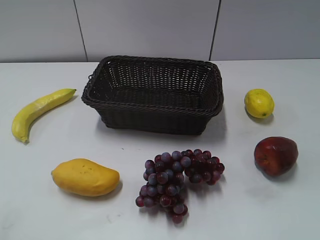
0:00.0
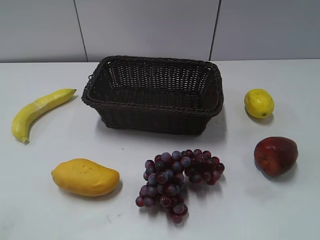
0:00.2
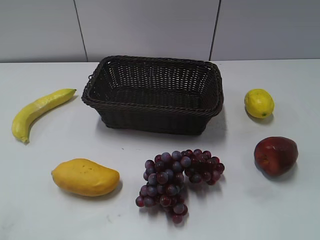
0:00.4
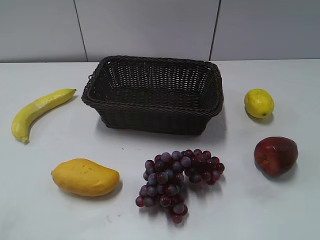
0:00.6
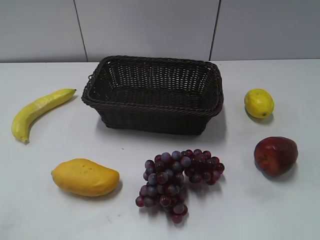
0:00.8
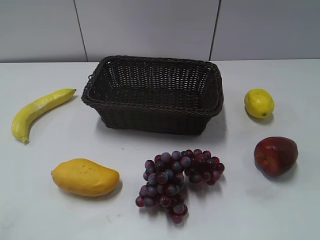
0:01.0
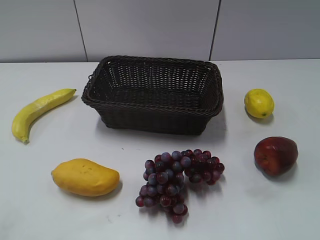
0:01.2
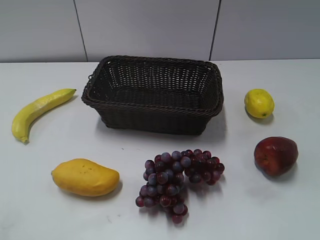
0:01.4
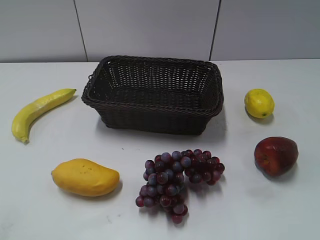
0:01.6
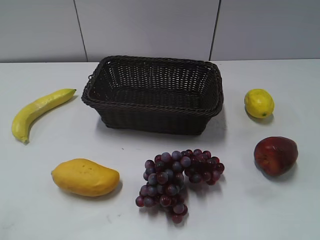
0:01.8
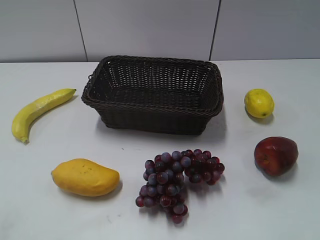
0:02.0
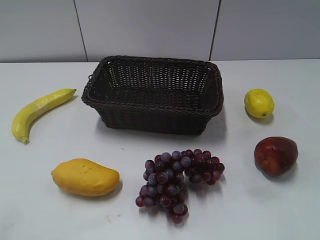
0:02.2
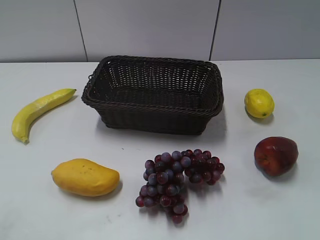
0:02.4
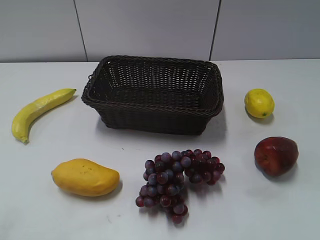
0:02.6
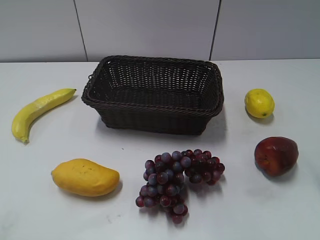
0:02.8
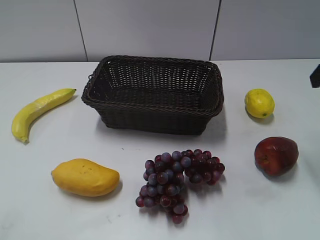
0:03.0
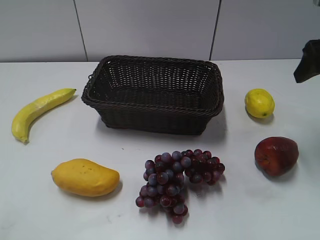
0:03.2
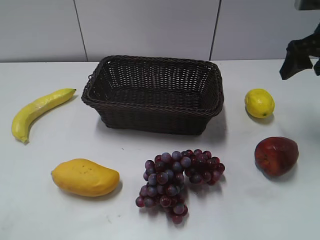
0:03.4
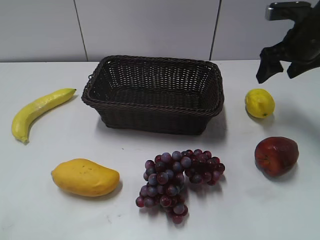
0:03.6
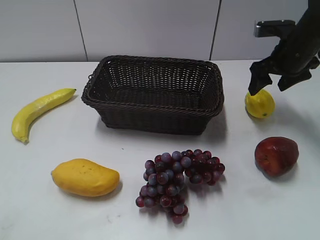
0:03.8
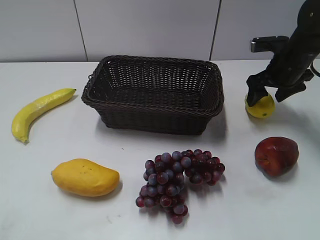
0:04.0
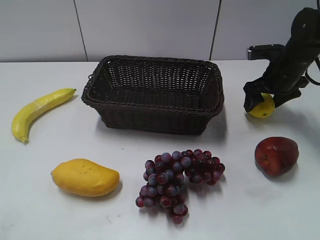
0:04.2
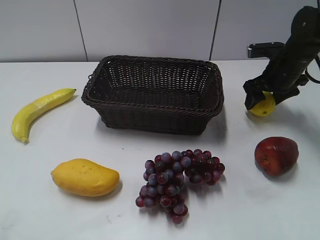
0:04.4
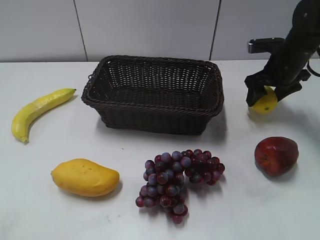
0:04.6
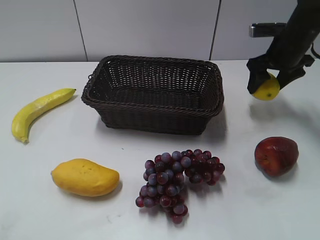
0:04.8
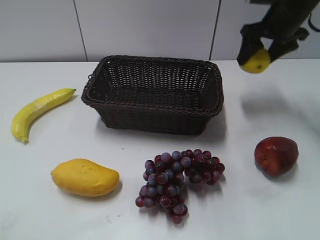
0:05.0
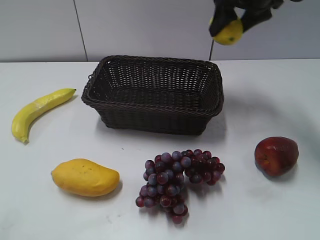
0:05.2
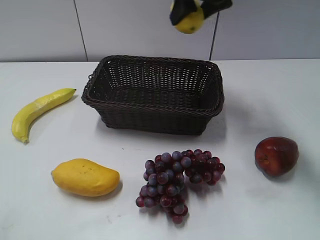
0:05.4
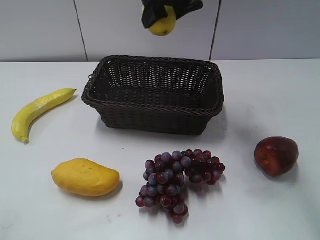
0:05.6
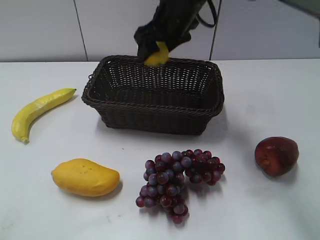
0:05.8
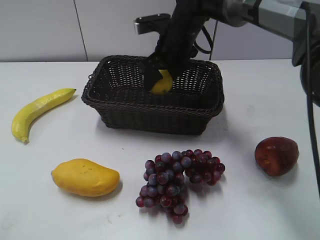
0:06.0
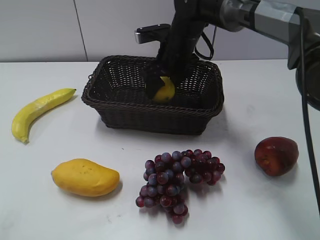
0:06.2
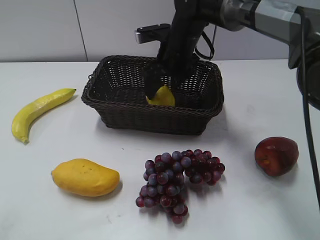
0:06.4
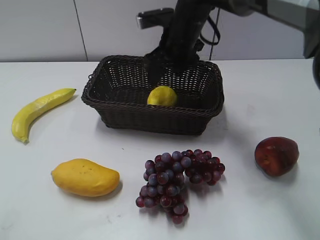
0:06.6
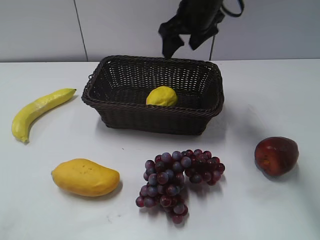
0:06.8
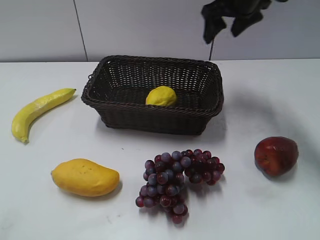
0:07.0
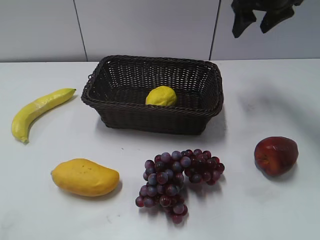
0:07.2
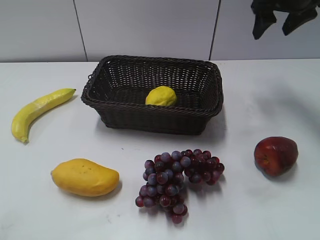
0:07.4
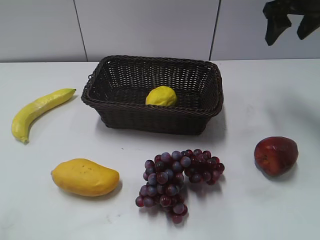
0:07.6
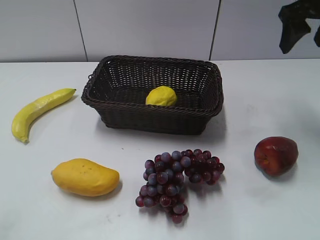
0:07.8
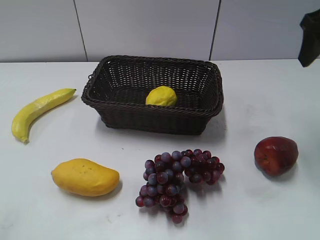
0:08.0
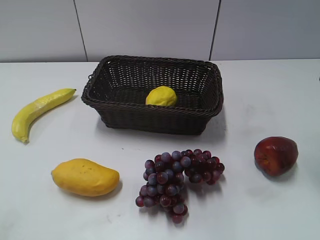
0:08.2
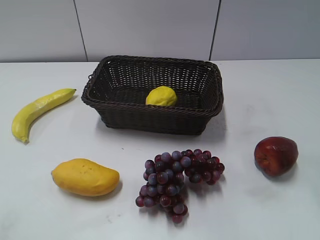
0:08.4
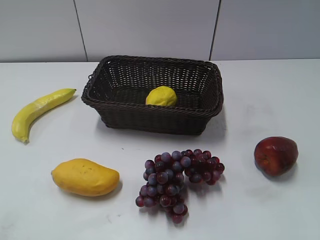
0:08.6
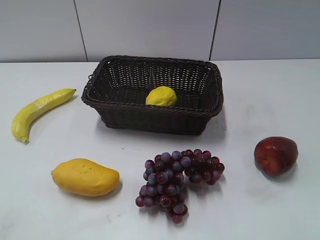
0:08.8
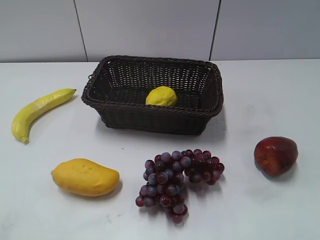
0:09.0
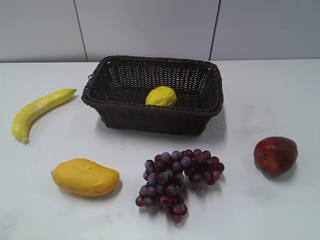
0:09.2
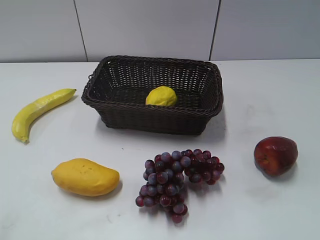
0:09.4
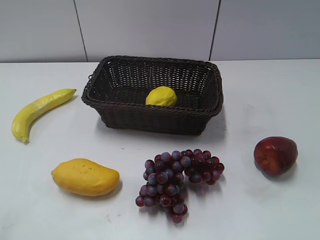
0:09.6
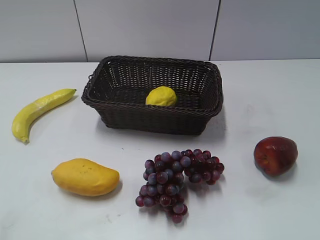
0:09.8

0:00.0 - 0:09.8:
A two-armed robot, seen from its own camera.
Step, 0:03.0 - 0:04.4: Grasp the lemon with right gripper.
Step, 0:04.6 - 0:06.6: Place the lemon in the basket with right gripper.
0:02.8 - 0:04.2: The right gripper is displaced forward and downward by roughly 30 cm.
0:04.2 - 0:05.6: The right gripper heads to the left and upward, covering roughly 25 cm, and closes.
0:05.6 - 0:07.0: The right gripper moves to the right, roughly 10 cm, and moves about 10 cm downward and comes back.
0:07.0 - 0:08.4: The right gripper heads backward and to the right, covering roughly 25 cm.

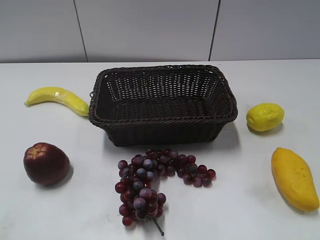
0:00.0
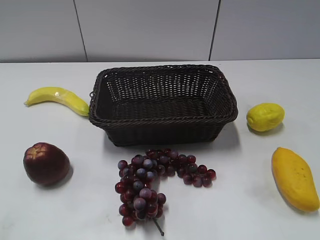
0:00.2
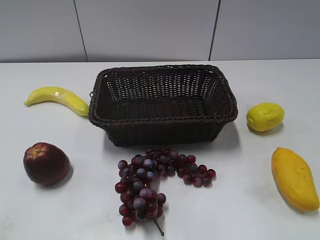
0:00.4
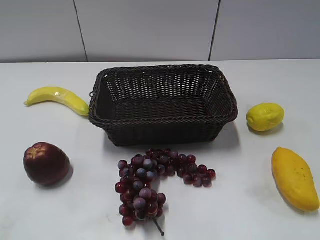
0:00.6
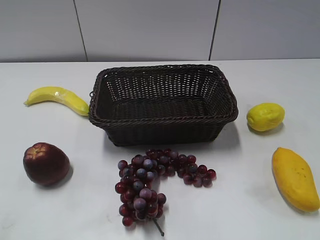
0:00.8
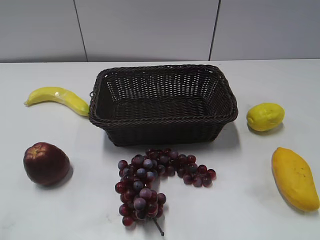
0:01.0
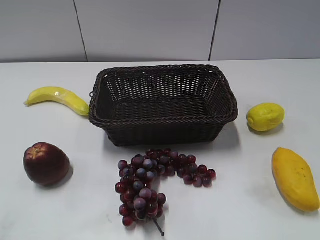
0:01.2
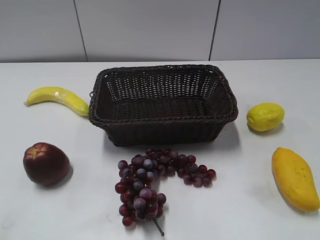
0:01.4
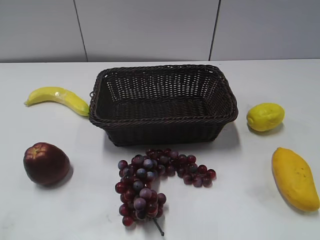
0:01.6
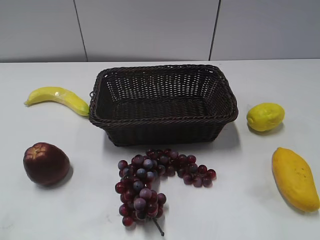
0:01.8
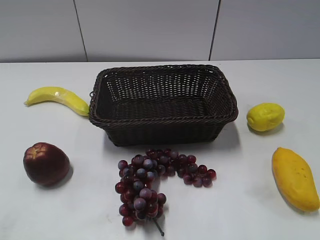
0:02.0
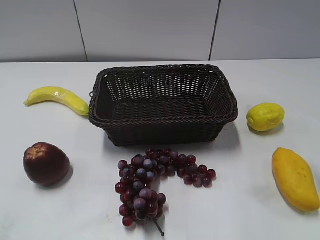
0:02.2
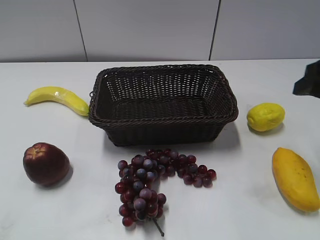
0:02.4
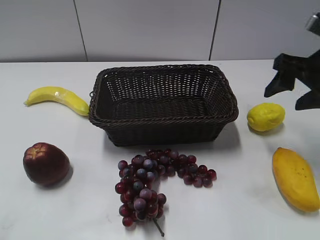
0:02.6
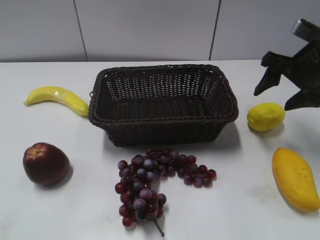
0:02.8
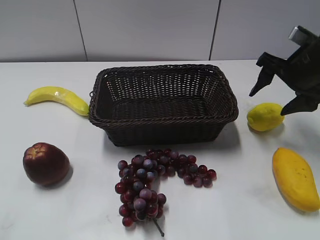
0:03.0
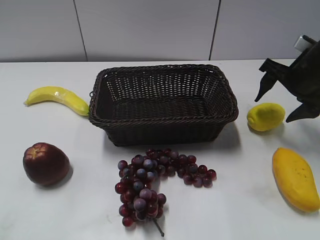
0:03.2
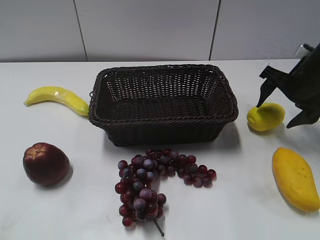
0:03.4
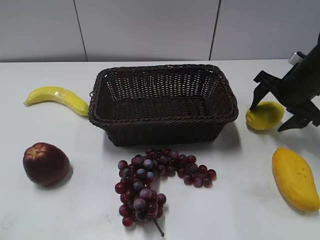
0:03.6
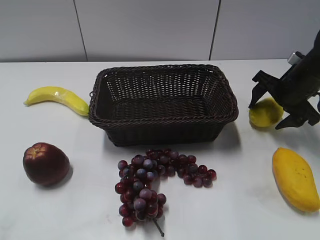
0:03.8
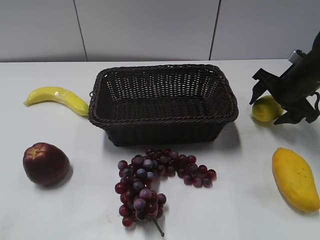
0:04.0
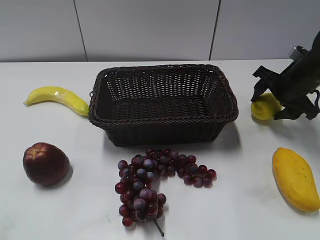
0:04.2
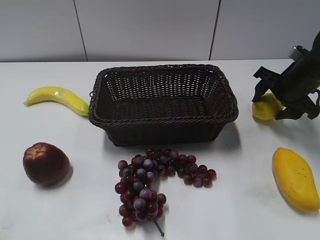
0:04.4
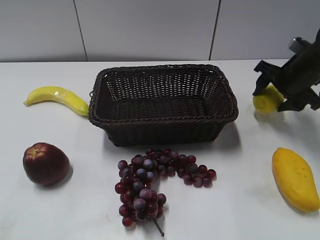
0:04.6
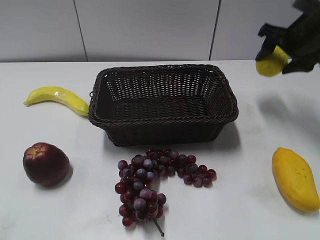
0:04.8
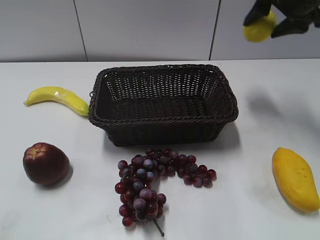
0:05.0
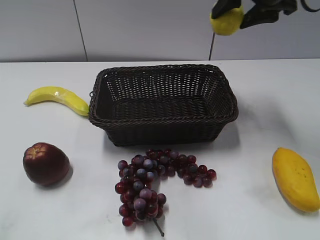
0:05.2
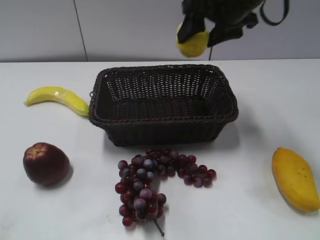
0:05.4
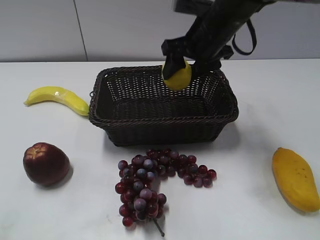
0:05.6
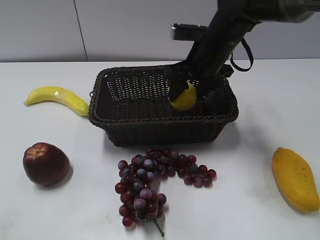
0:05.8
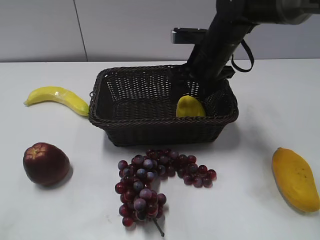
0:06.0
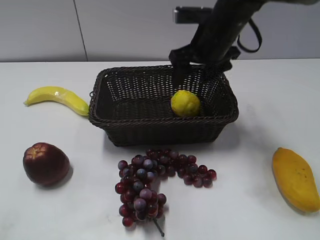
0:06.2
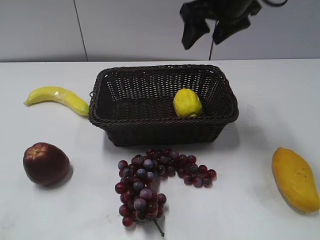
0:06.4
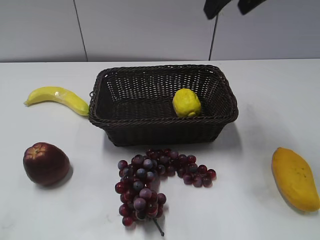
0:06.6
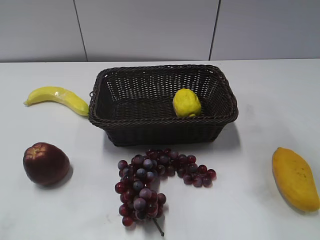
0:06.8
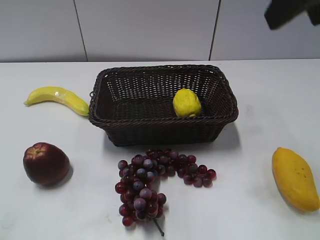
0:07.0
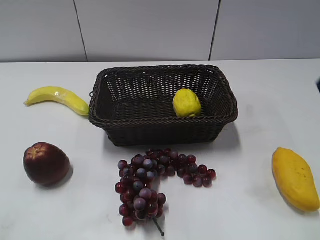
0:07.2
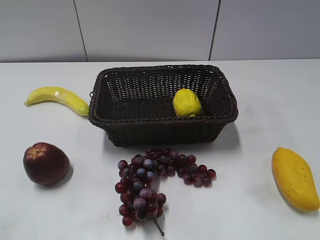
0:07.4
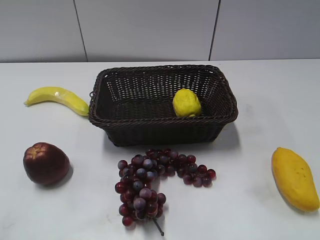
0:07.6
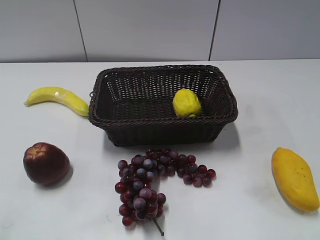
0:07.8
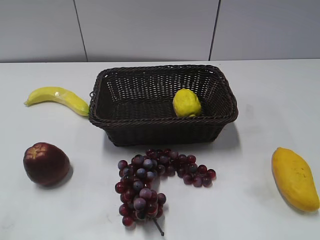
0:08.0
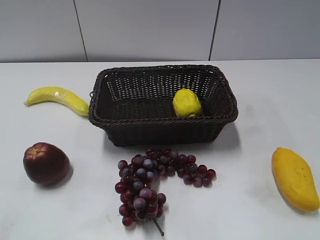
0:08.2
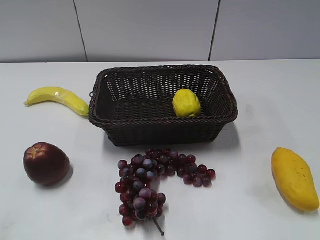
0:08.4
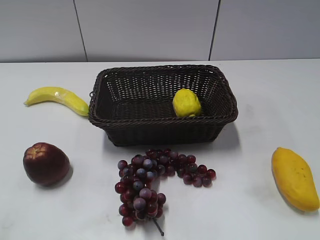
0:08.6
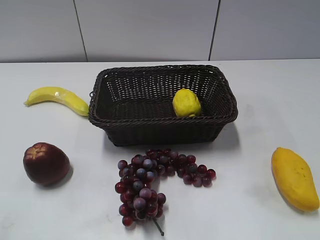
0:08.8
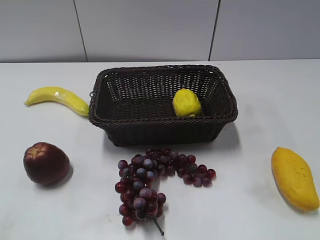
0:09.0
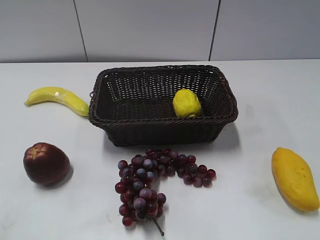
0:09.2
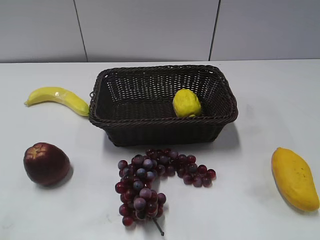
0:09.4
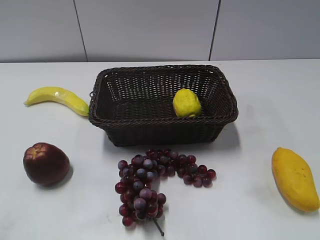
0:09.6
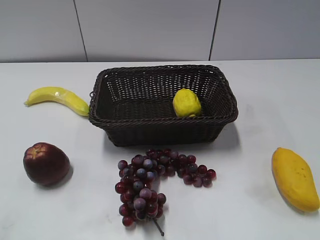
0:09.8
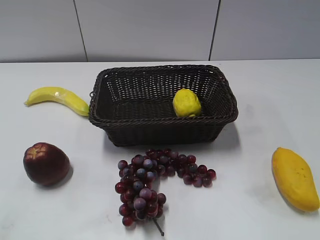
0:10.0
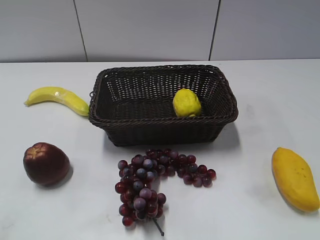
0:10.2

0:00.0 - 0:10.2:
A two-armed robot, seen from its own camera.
Step, 0:02.4 - 0:04.6: Grasp the lemon with right gripper.
Step, 0:04.8 - 0:06.0: Place the lemon in the basket with right gripper.
0:01.4 - 0:03.0: The right gripper travels forward by some 35 cm.
0:03.0 - 0:04.4: The right gripper travels downward by about 5 cm.
0:04.4 - 0:05.8: The right gripper goes some 20 cm to the left.
0:05.8 - 0:07.2: The right gripper goes about 35 cm backward, upward and to the right.

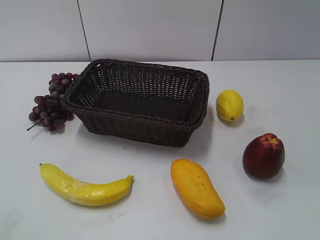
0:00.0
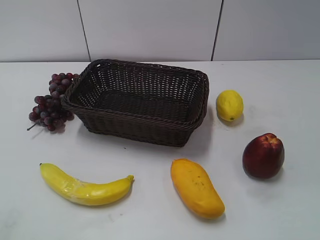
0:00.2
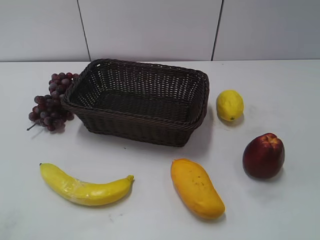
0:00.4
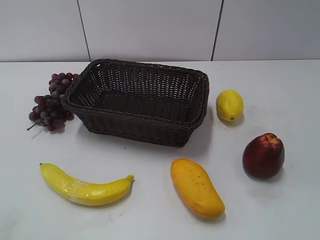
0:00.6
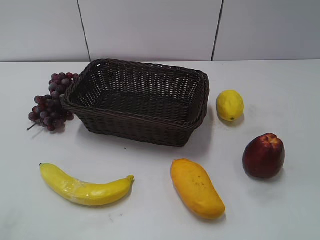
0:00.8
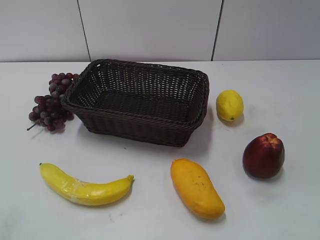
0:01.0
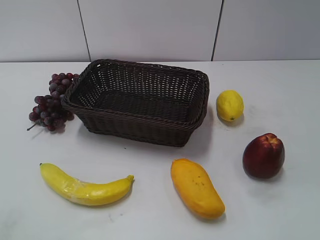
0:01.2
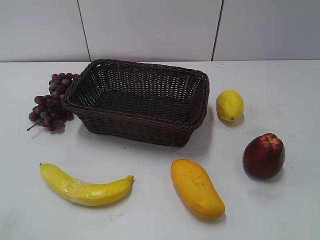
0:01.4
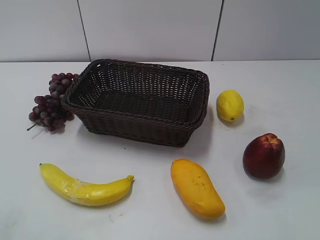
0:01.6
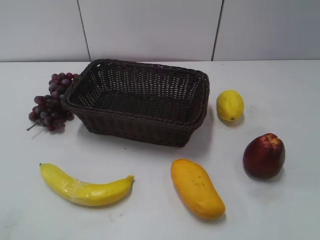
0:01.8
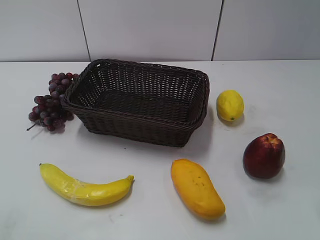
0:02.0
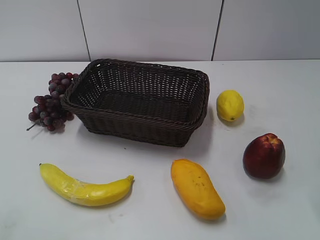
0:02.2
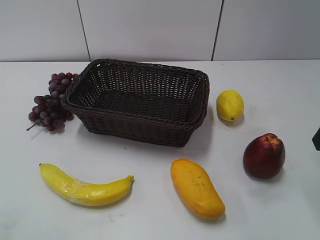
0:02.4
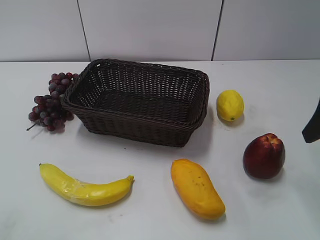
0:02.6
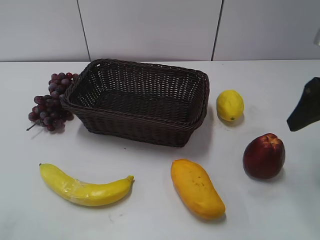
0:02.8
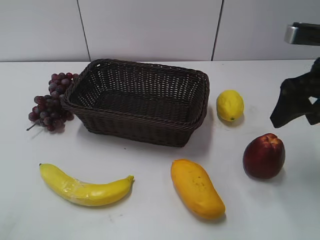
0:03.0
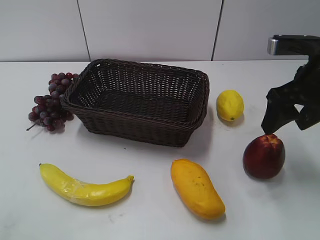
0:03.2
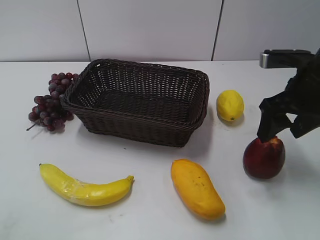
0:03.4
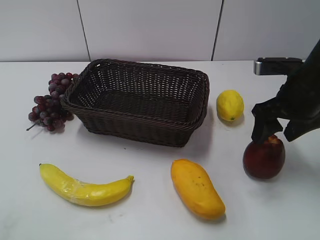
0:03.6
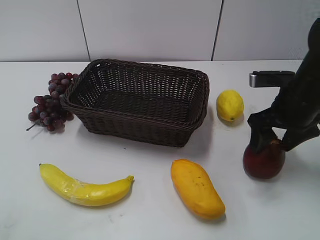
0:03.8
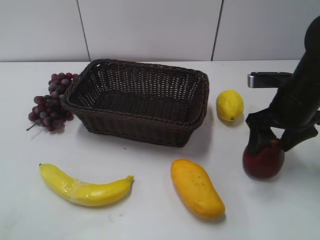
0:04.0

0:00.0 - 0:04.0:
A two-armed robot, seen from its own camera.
Step, 0:02.4 - 0:03.8: Grasp the apple with right gripper.
0:02.6 - 0:04.0: The right gripper travels downward, to the left and forward by roughly 15 cm.
